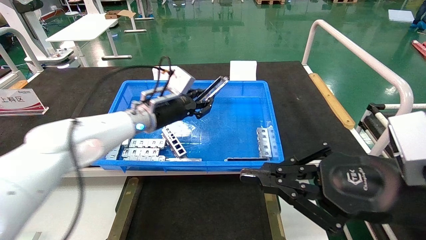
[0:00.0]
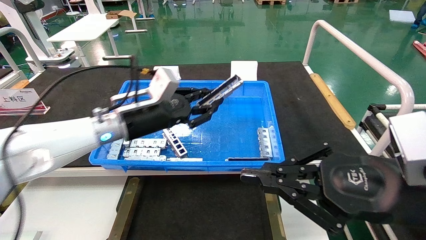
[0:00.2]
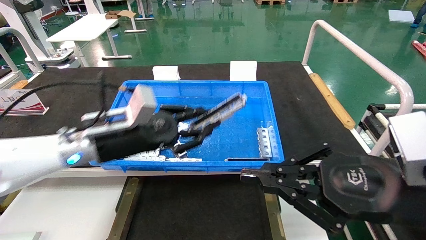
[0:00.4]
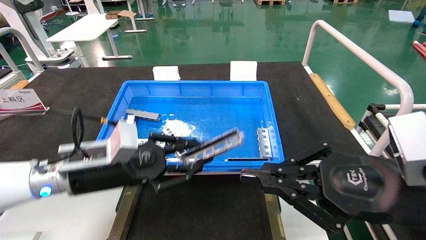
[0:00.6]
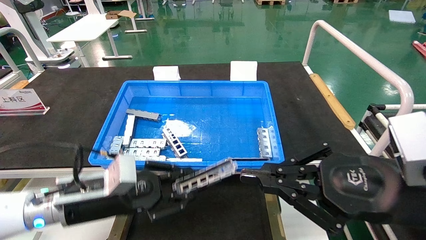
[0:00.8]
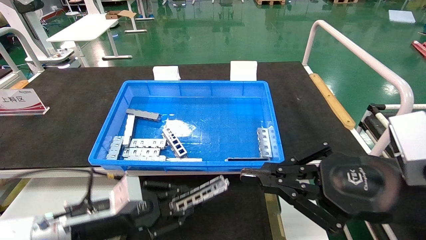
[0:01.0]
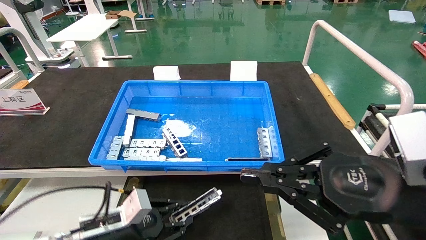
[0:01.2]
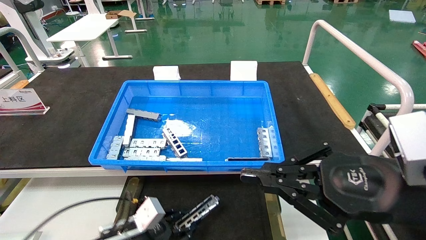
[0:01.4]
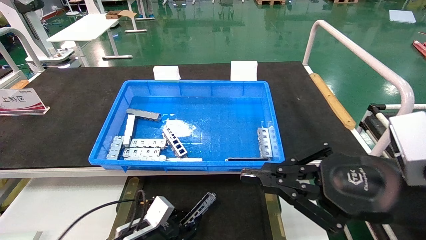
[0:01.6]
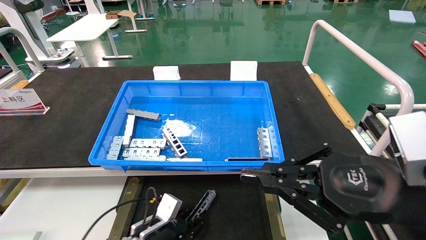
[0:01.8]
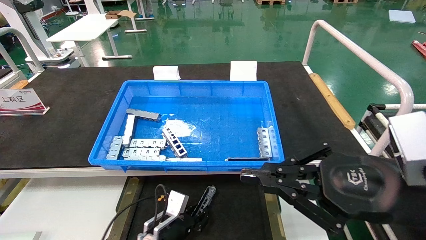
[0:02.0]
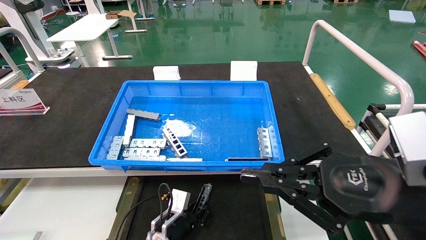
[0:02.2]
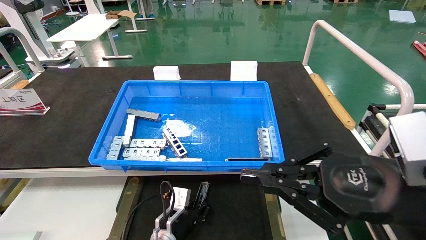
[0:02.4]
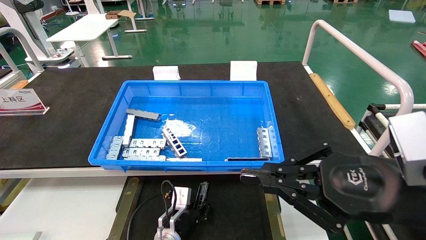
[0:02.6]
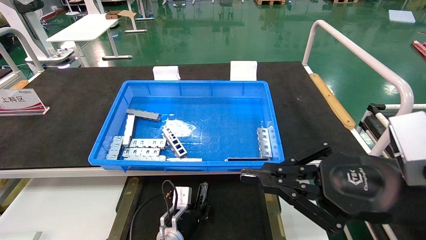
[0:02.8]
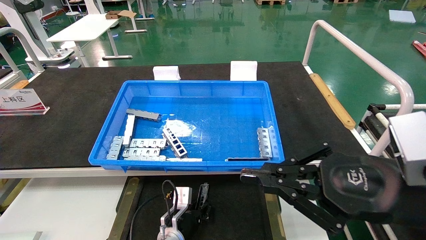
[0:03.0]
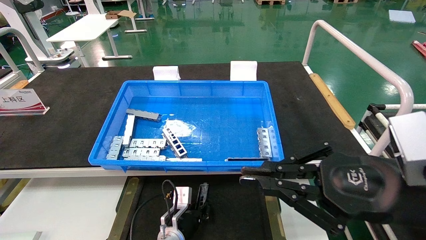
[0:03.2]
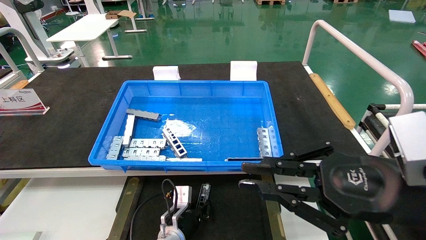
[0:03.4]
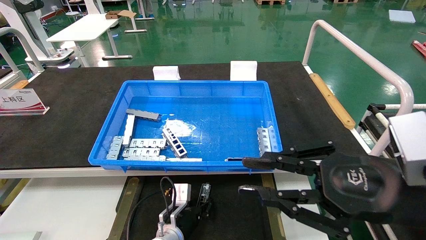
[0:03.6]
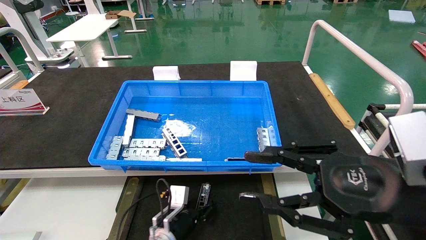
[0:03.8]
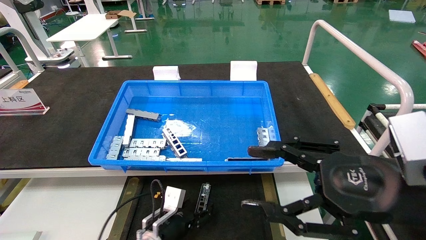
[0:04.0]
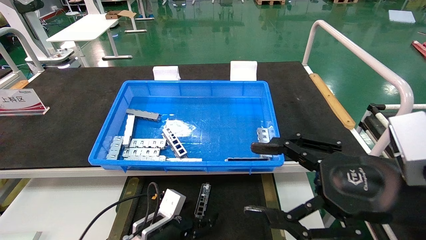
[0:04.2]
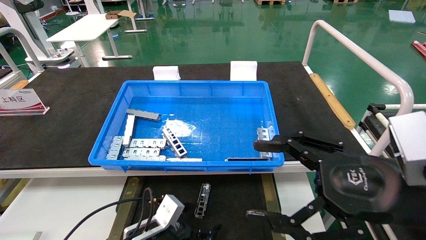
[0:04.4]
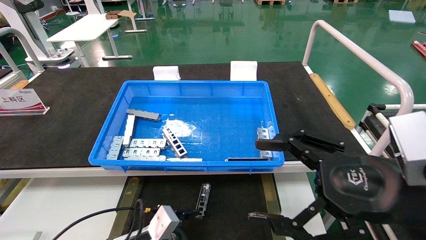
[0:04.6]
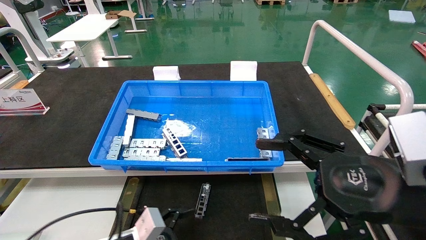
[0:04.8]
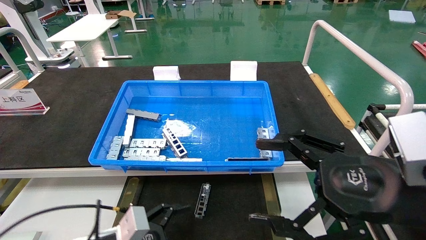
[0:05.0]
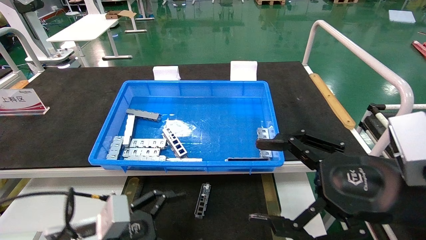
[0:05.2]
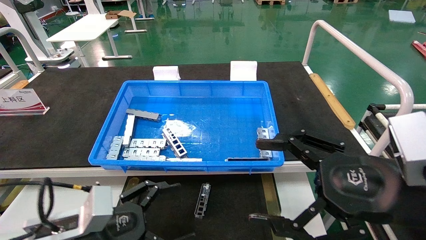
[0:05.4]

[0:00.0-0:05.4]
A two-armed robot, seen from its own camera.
Task of the whole recording: Grasp the part with one hand and place it on the black container.
Step, 0:00.0 to 0:03.6: Place the front USB bracket into the box.
0:00.0 to 0:01.4: The left gripper is displaced downward and backward by roughly 25 cm.
0:01.4 to 0:02.8: The left gripper goes approximately 15 cm to the right, forward and downward.
0:02.8 to 0:04.0: The right gripper opens its fingers, while the left gripper ends up about 5 cm from where it was, and opens up.
0:04.0 to 0:05.4: The right gripper opens up; the left gripper travels upward, backward and to the left by about 20 cm, and opens its fingers.
